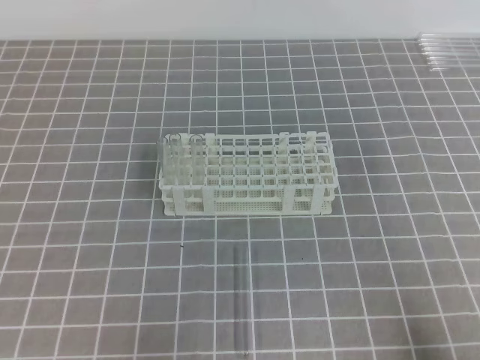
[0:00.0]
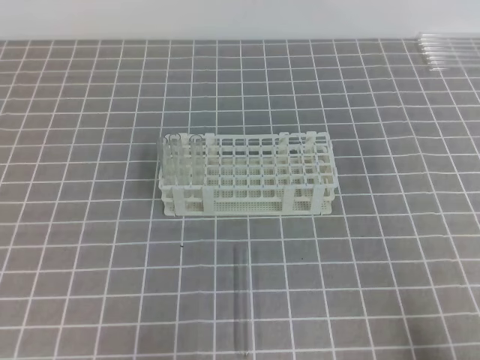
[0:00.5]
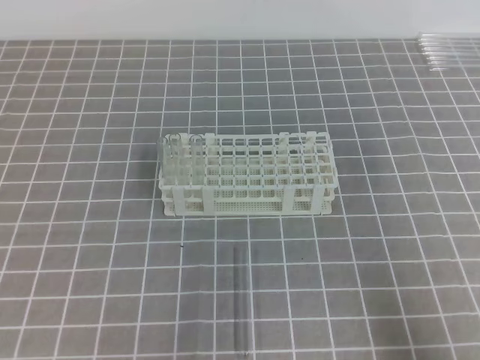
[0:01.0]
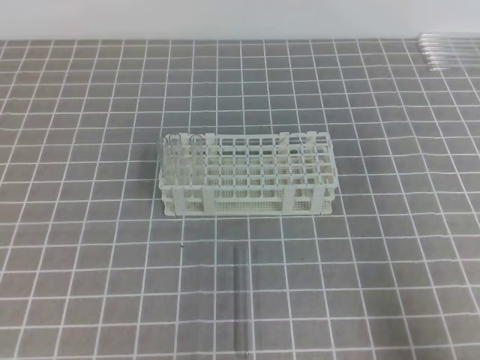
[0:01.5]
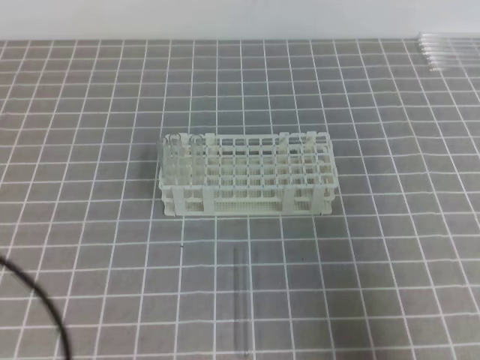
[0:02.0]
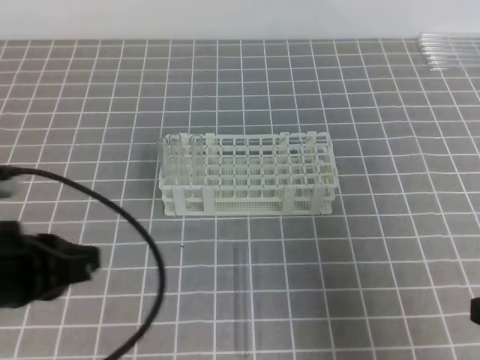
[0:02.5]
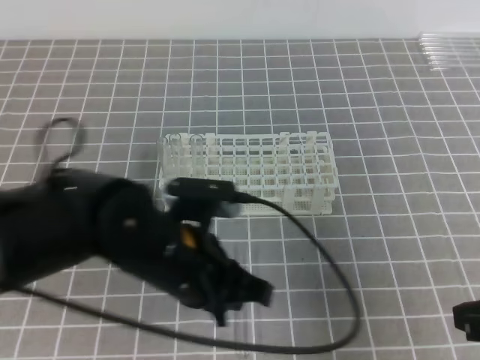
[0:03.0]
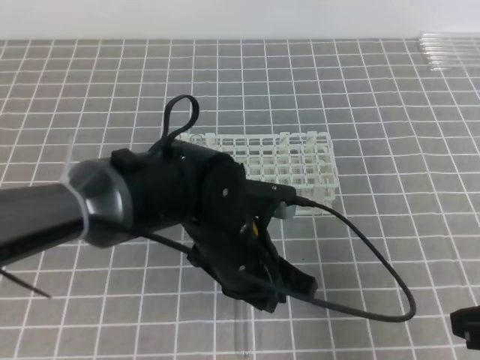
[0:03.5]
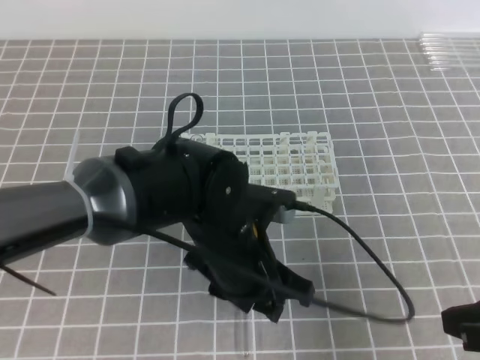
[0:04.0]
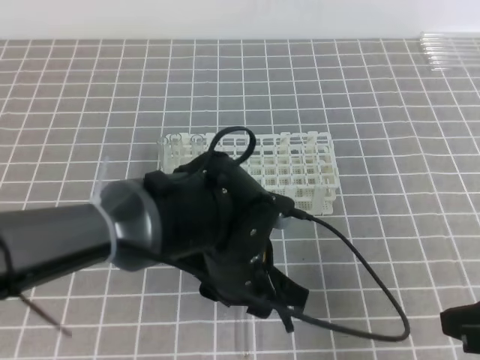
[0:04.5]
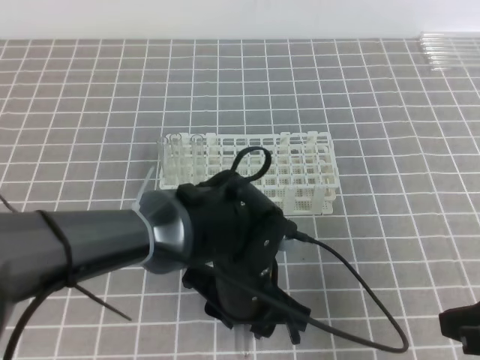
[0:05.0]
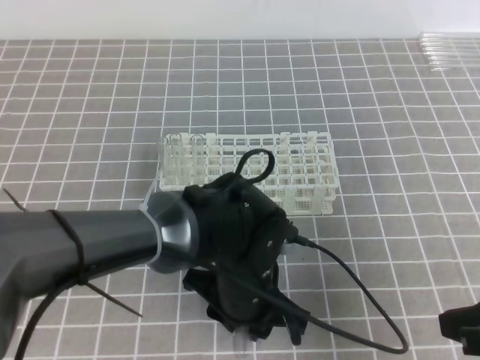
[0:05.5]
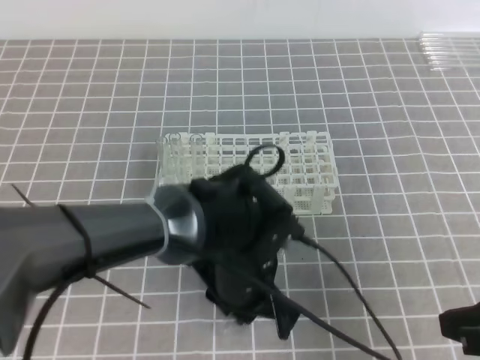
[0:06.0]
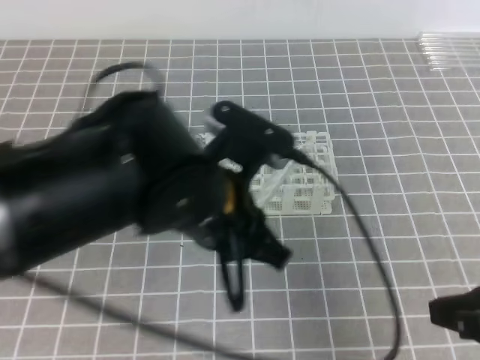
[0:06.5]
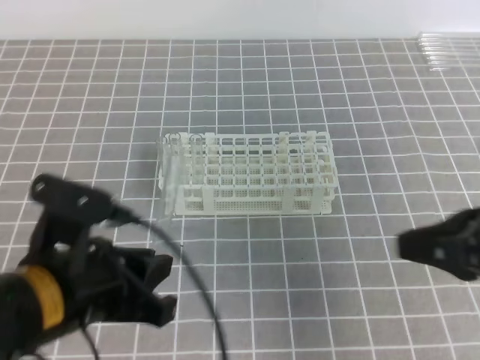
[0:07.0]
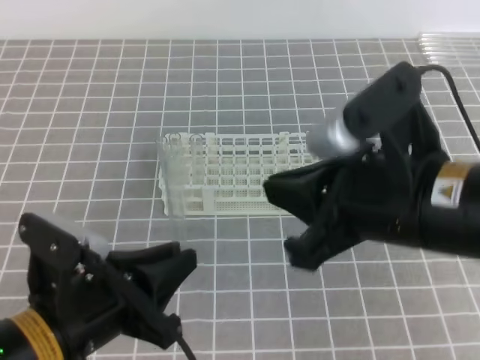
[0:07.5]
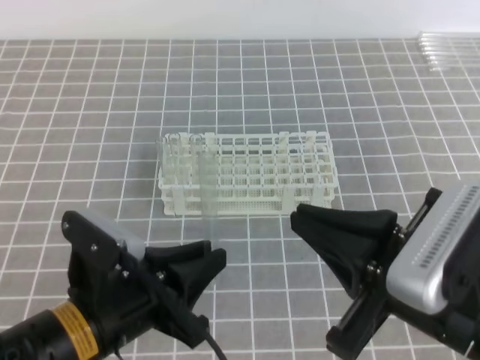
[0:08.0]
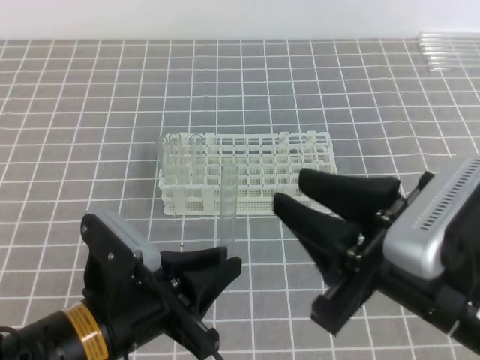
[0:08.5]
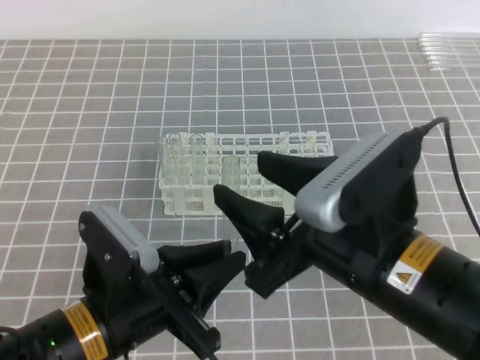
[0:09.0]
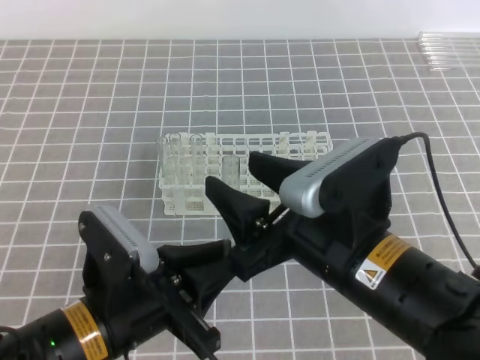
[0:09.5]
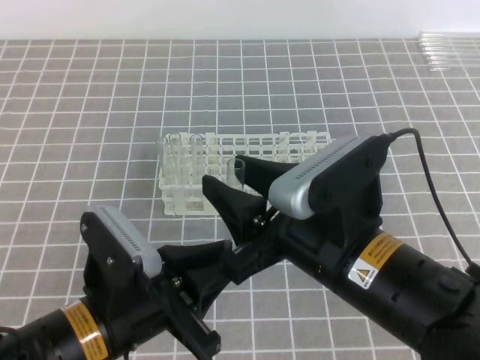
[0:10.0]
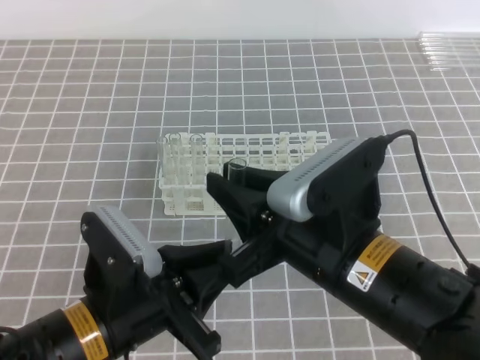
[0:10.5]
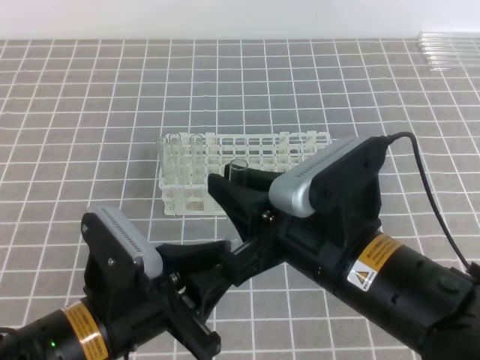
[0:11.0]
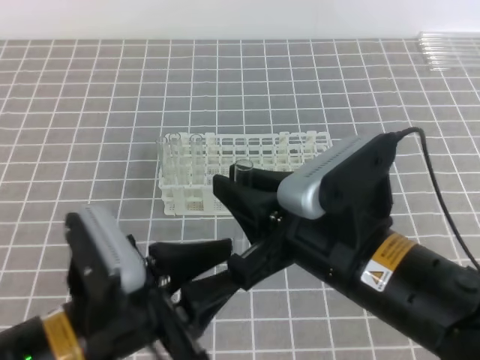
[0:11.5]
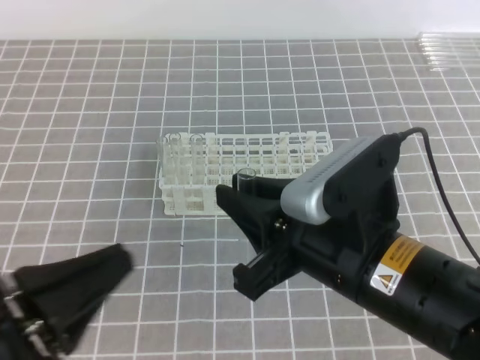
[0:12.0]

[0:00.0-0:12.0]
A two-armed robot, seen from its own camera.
0:00.0 to 0:02.0: The grippers both shift upward by roughly 10 cm.
0:02.0 to 0:04.0: The left gripper moves to the right and forward, roughly 30 cm, and opens its fingers. The right gripper goes approximately 5 cm forward.
0:04.0 to 0:06.0: The left gripper closes its fingers.
0:06.0 to 0:08.0: The left gripper is displaced to the left and backward by approximately 15 cm. Meanwhile the right gripper goes approximately 15 cm to the left and upward.
0:08.0 to 0:10.0: The right gripper goes roughly 5 cm to the left, and opens.
0:10.0 to 0:12.0: The left gripper goes about 10 cm to the left, backward and upward, and opens, then closes once more; the right gripper closes its fingers.

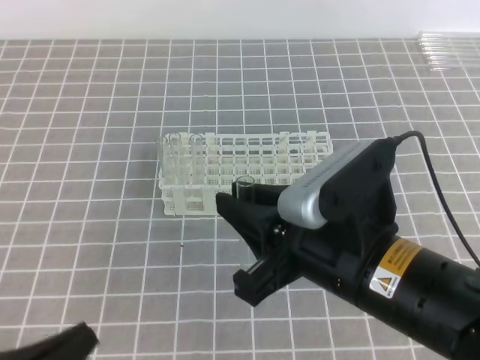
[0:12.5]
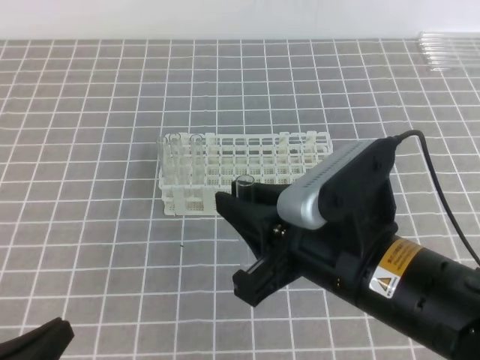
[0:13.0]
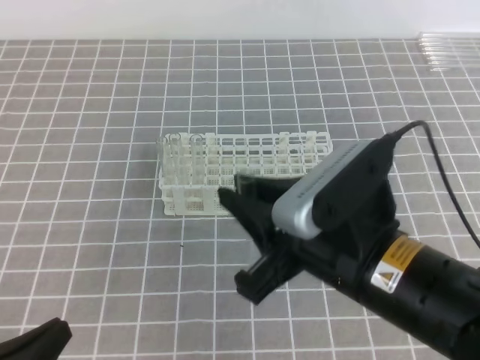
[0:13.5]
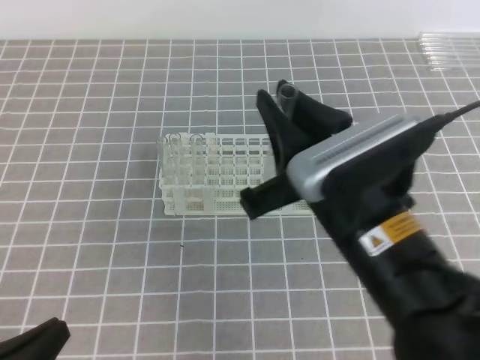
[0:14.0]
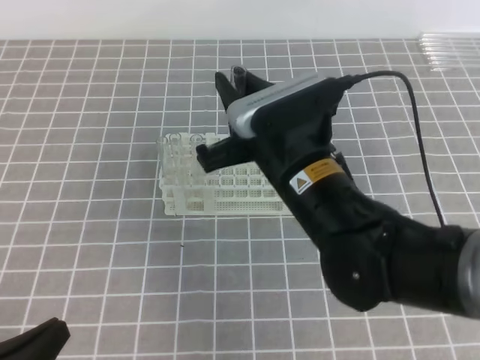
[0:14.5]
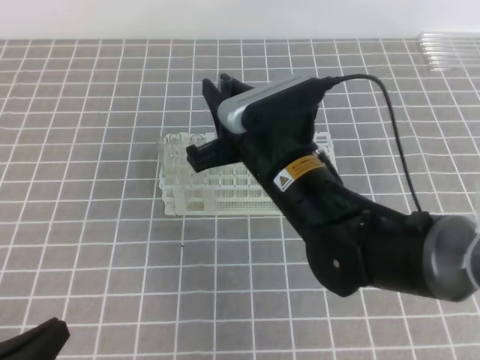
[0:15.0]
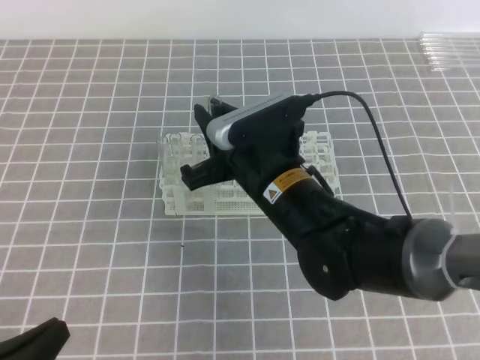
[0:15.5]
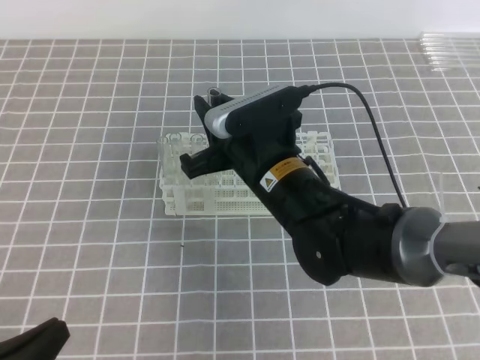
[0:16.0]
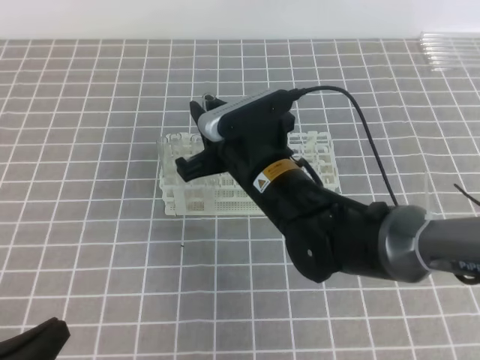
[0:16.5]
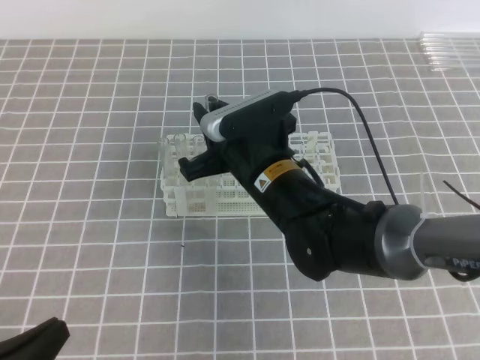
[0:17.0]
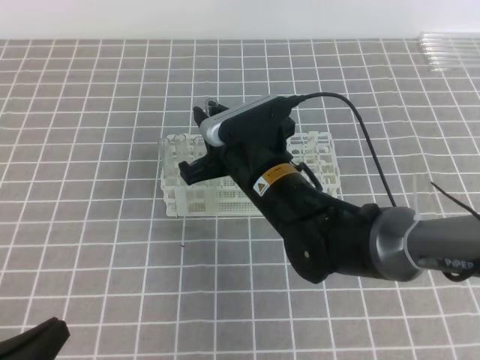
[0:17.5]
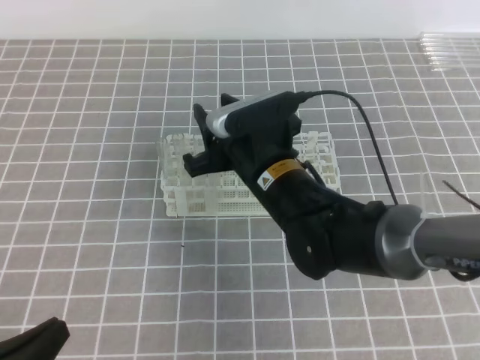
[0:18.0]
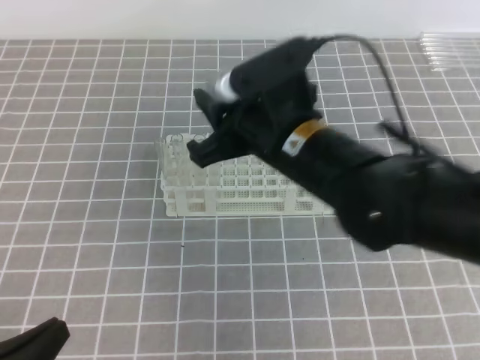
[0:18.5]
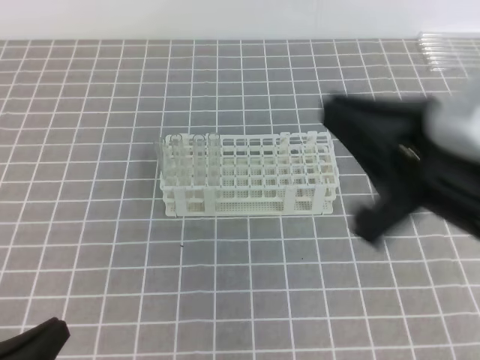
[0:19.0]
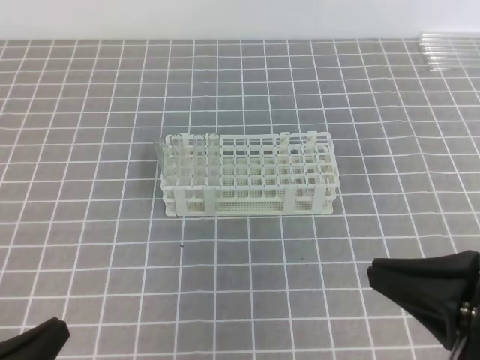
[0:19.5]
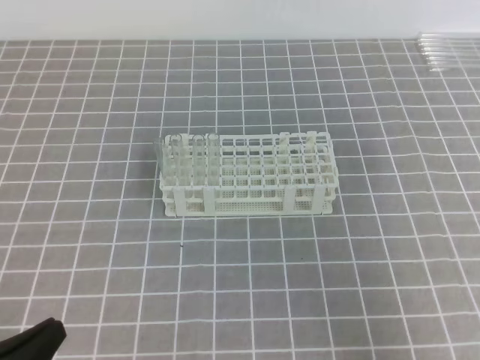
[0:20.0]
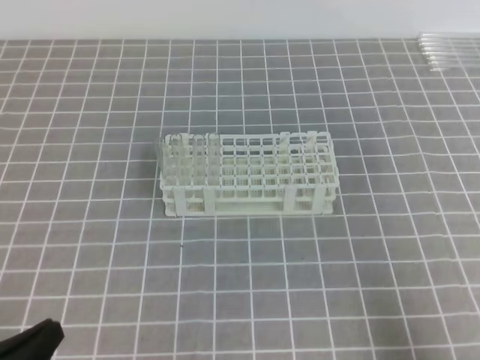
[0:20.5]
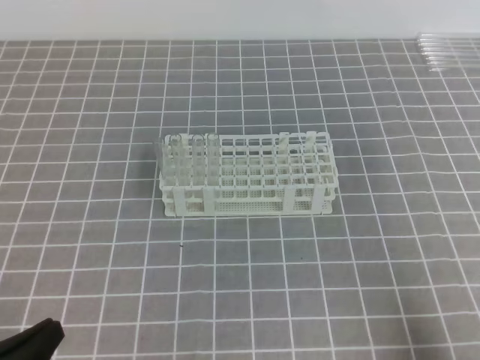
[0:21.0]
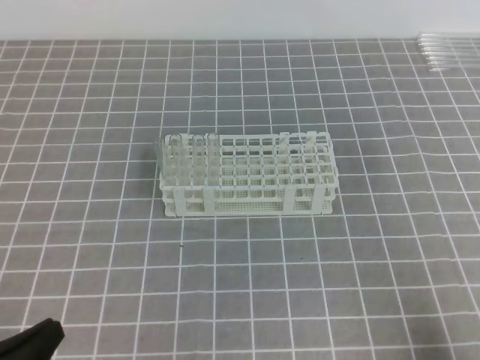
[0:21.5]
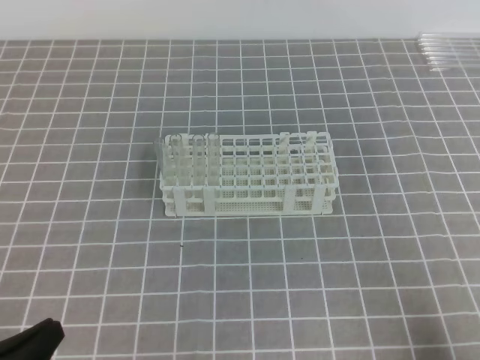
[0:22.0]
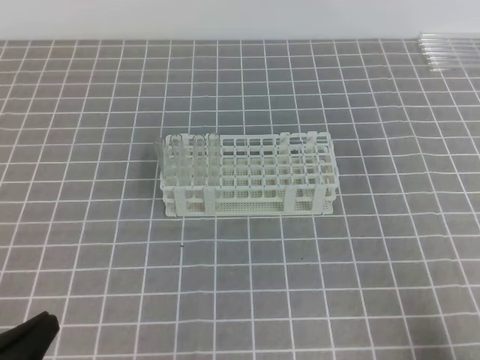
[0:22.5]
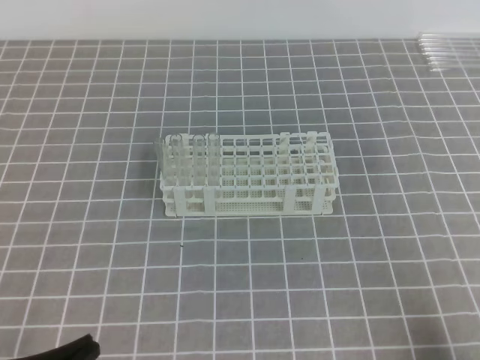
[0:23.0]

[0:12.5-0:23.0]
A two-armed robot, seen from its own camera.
0:12.5 to 0:14.5: The right gripper moves forward, about 10 cm.
0:14.5 to 0:16.5: The right gripper moves approximately 5 cm.
0:16.5 to 0:19.0: The right gripper goes approximately 25 cm backward, to the right and upward, and opens, then closes once more.
0:19.0 to 0:21.0: The right gripper is displaced downward, to the right and backward by some 25 cm.
0:21.0 to 0:23.0: The grippers stay close to where they were, moving slightly.

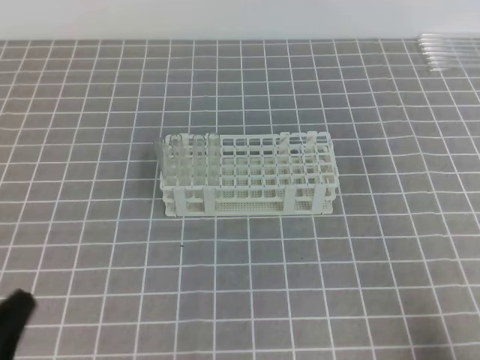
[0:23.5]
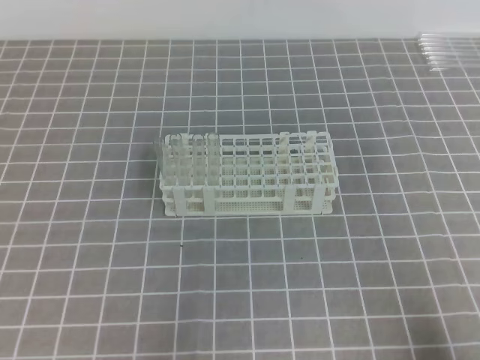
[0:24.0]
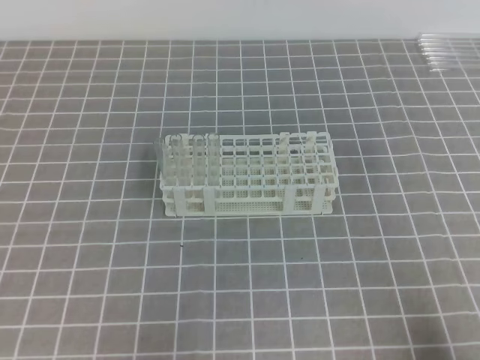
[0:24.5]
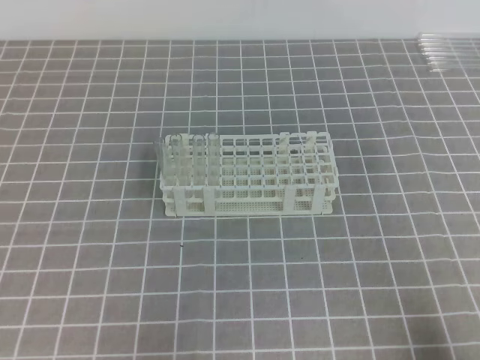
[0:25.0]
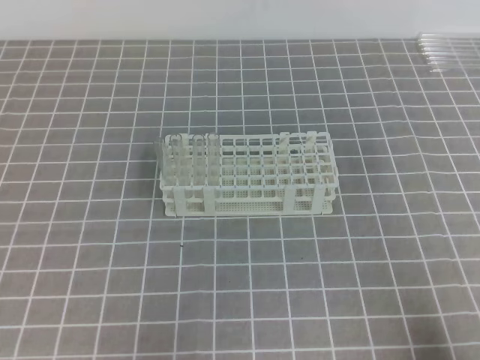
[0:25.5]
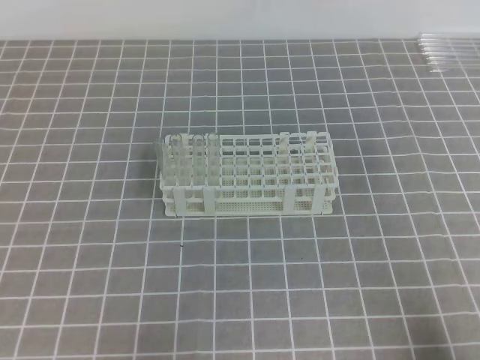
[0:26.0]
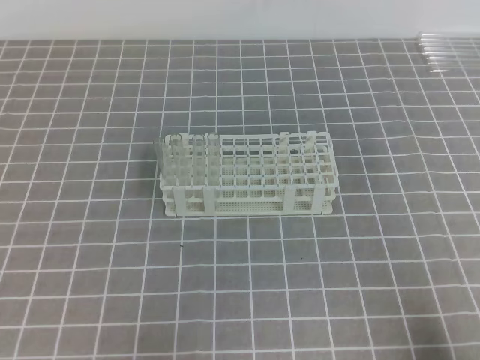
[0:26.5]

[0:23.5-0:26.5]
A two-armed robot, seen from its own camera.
0:25.0 to 0:26.5: Both grippers stay about where they are.
